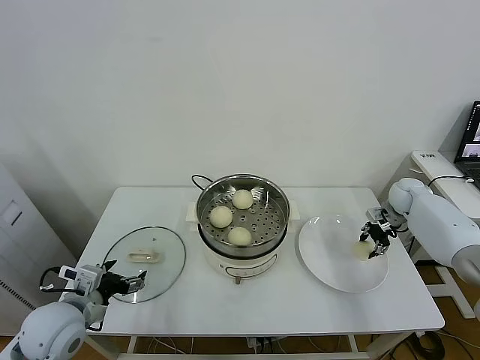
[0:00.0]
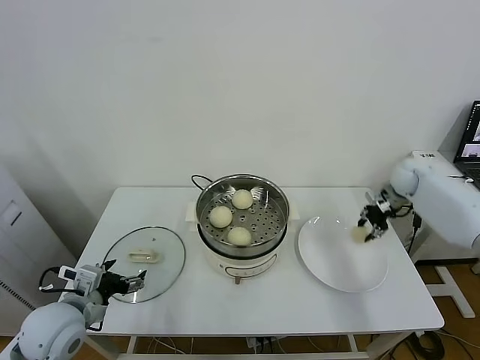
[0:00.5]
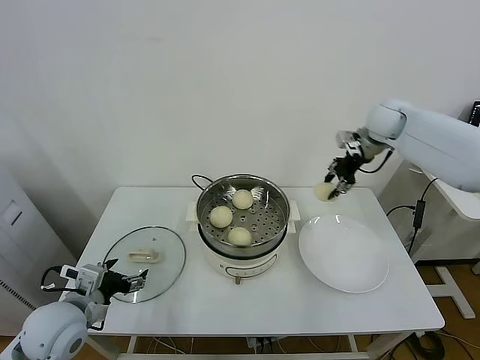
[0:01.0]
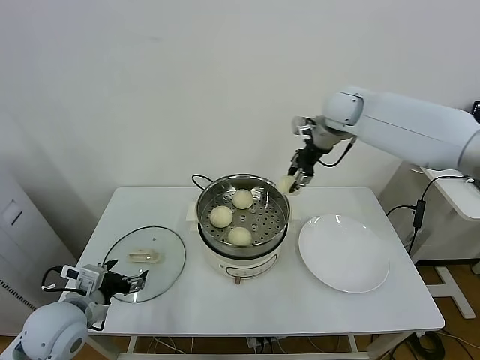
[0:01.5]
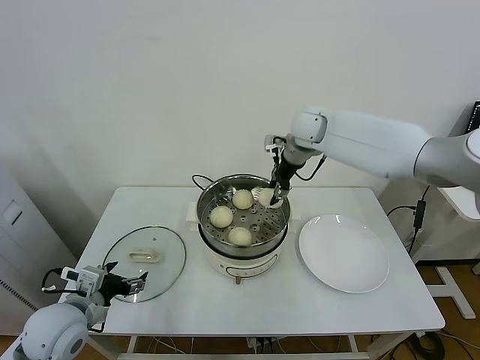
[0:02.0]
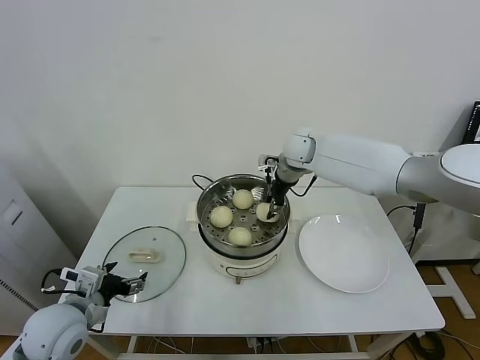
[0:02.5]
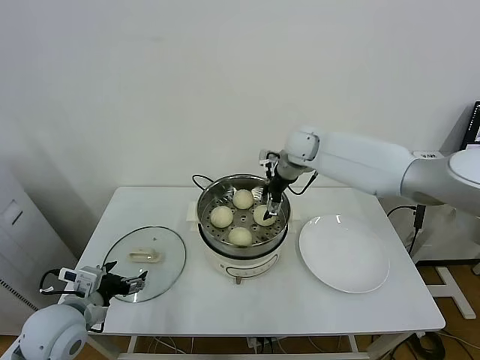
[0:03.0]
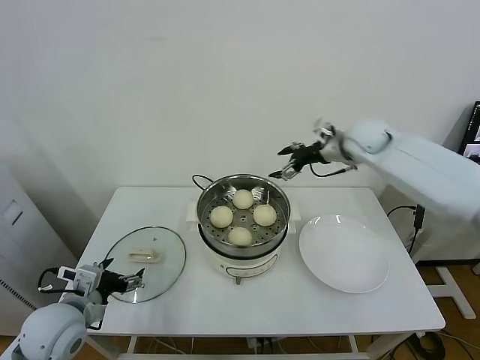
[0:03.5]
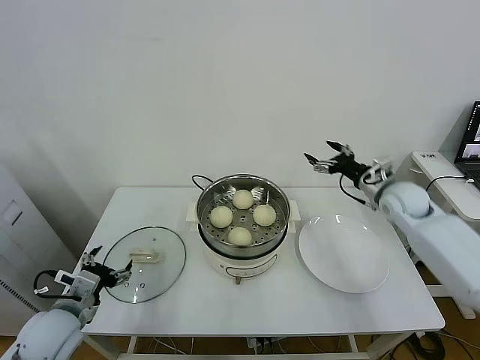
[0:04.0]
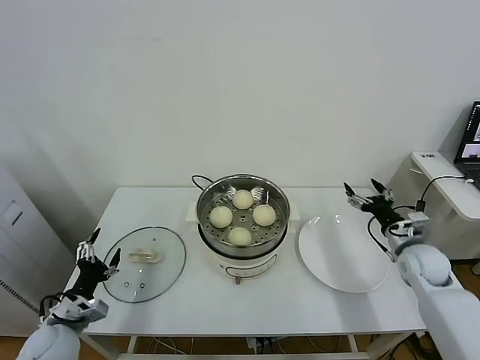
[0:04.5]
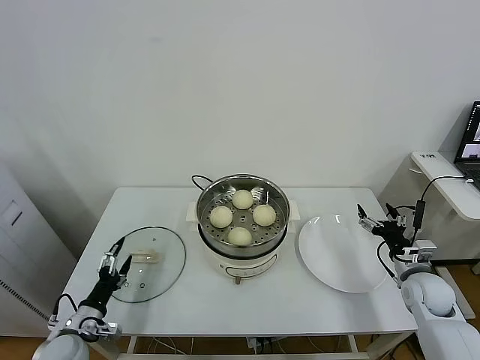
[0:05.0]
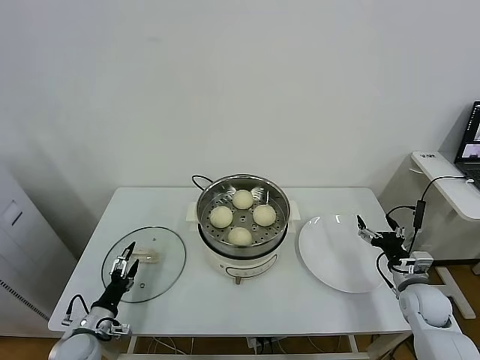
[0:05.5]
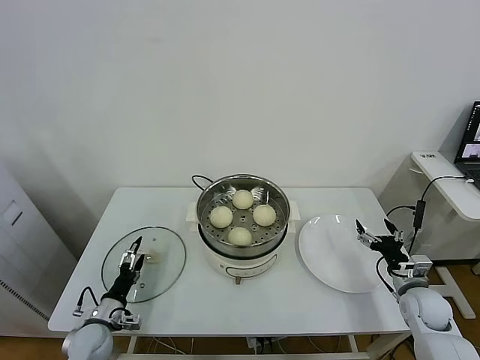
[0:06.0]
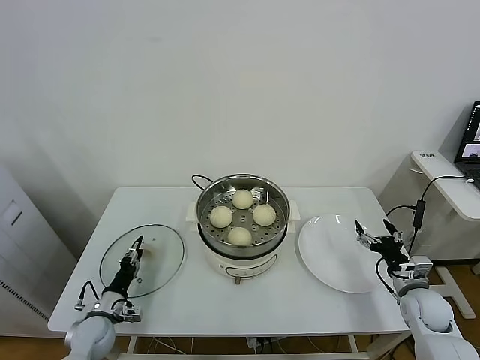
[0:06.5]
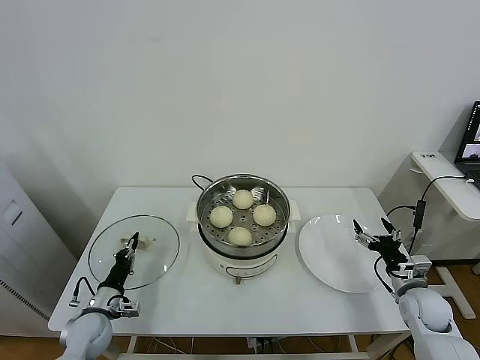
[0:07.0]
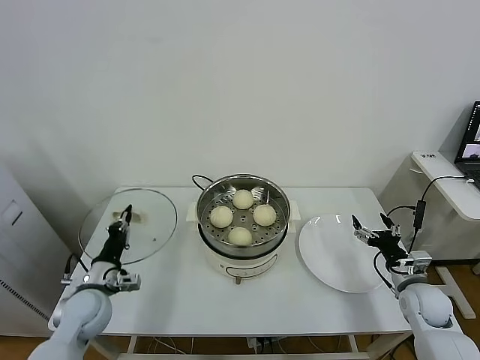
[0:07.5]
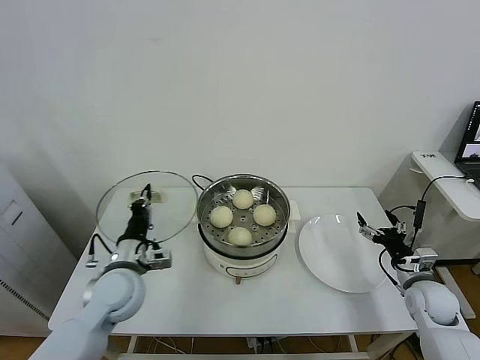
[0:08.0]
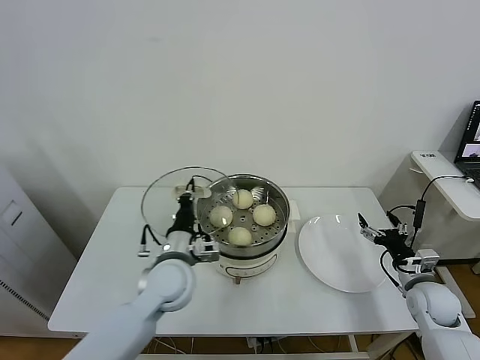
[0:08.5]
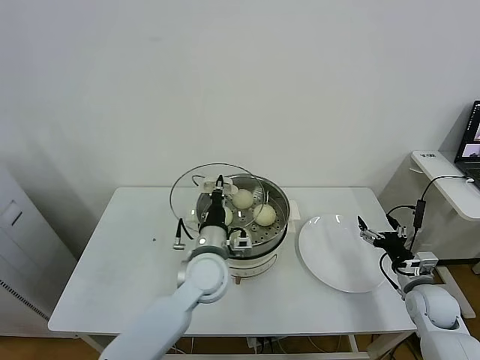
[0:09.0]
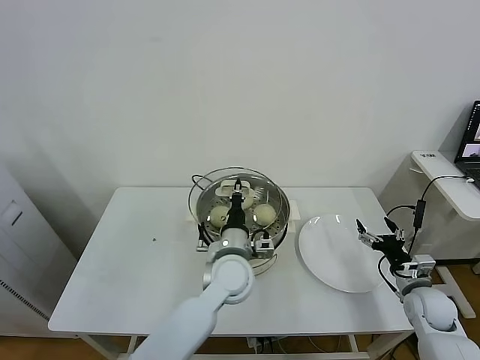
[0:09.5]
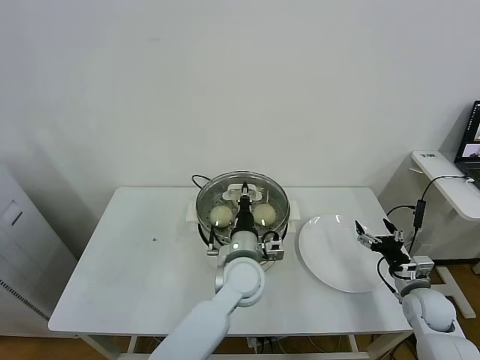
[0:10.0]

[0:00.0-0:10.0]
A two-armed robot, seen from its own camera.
Task of the whole recording: take steamed baozi put them in steamer.
Step, 0:00.5 to 0:03.0: Place the baozi on the steamer with right gripper.
Step, 0:03.5 to 0:07.0: Grasp the pot lid with left gripper.
0:00.0 to 0:02.0: The right gripper goes roughly 35 cm to the left and upward.
0:02.0 to 0:04.0: The right gripper shifts about 30 cm to the right, downward and backward, and opens its fingers.
0:04.0 to 0:06.0: The right gripper heads downward and backward, covering some 25 cm. The left gripper heads downward, covering some 20 cm.
0:06.0 to 0:08.0: The left gripper is displaced upward and to the right by some 25 cm, and closes its fingers.
0:08.0 to 0:10.0: The left gripper shifts some 25 cm to the right.

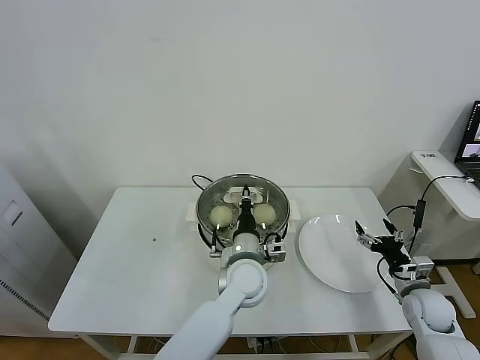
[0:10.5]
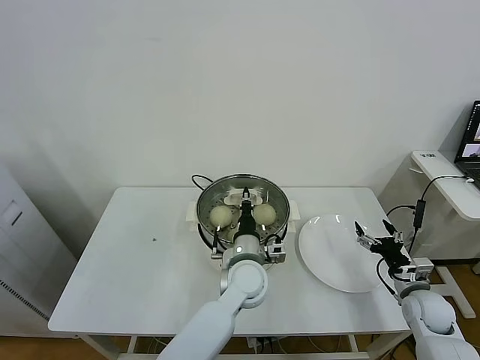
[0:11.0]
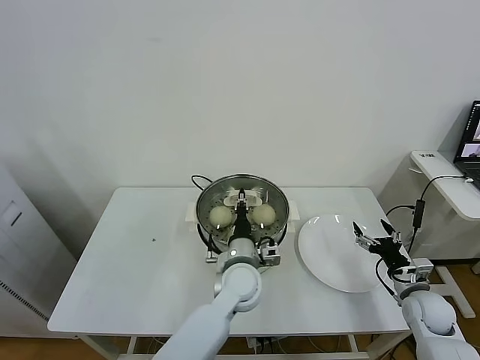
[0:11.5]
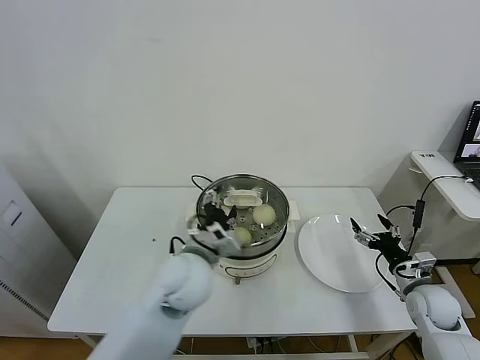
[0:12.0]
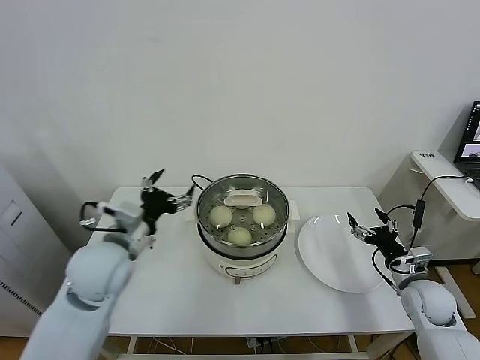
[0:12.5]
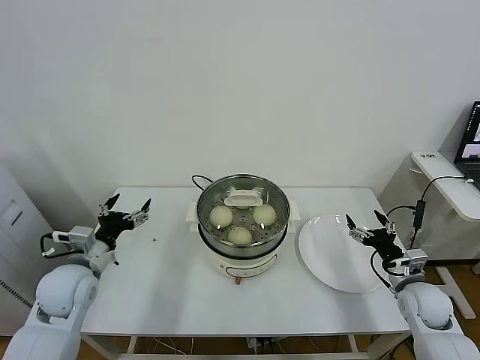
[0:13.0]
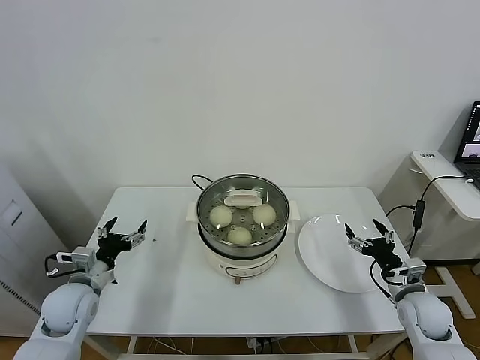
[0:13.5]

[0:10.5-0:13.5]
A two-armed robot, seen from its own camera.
Task of the whole recording: take steamed baozi put them in steamer.
0:10.5 to 0:12.0: The left gripper heads to the left and upward, covering approximately 10 cm, and opens its fingers.
0:12.0 to 0:13.5: The left gripper travels to the left by approximately 25 cm.
